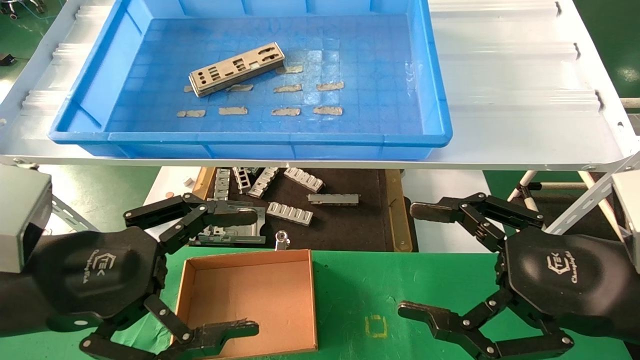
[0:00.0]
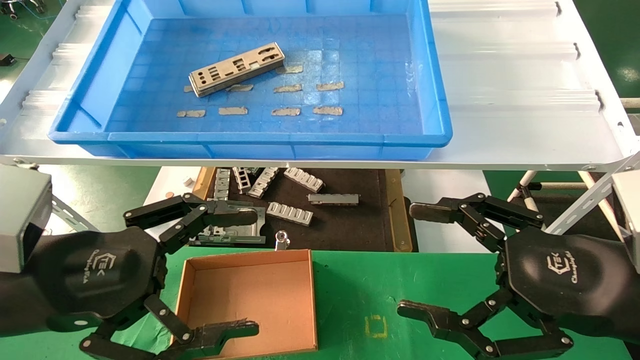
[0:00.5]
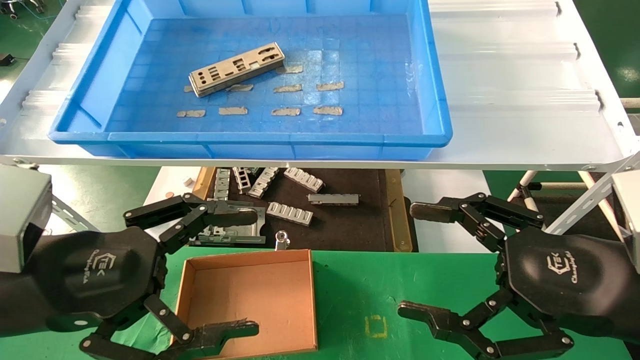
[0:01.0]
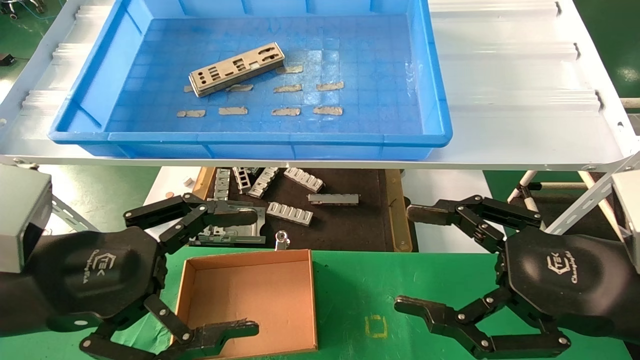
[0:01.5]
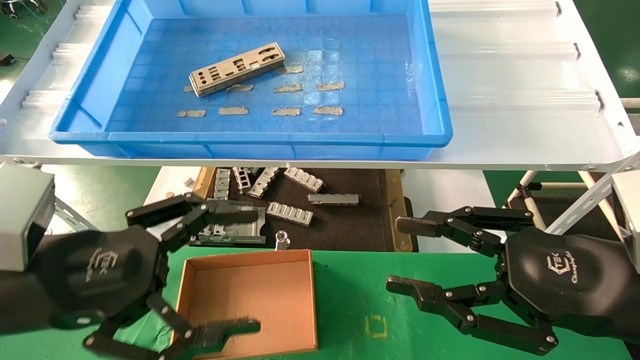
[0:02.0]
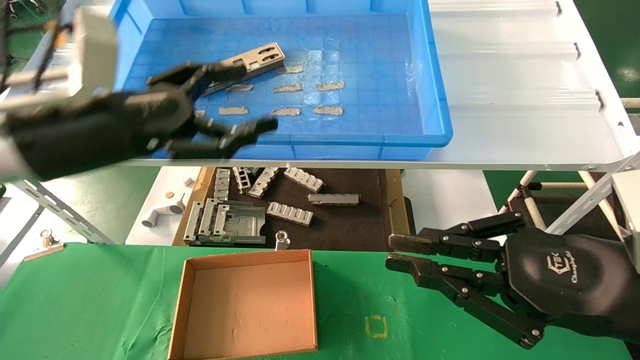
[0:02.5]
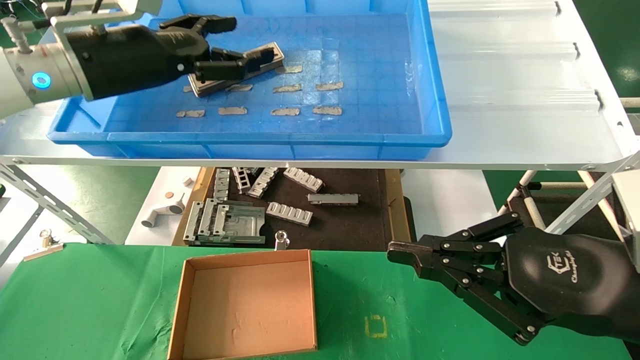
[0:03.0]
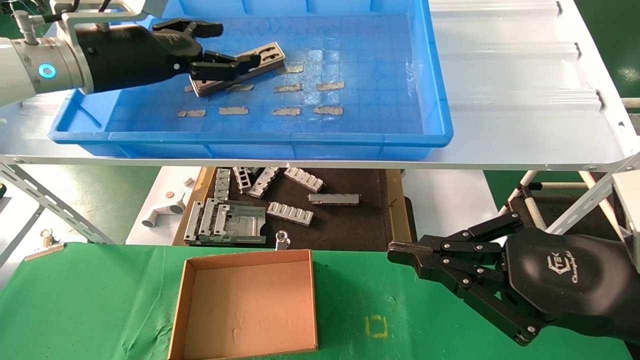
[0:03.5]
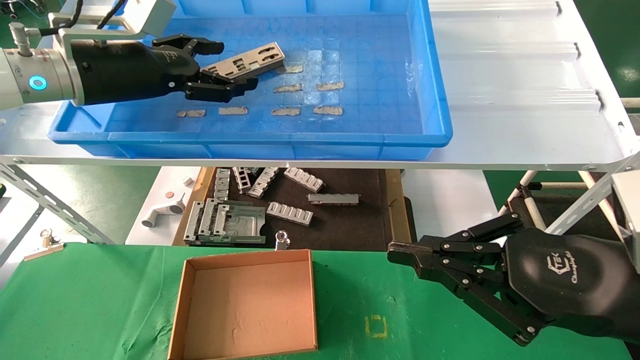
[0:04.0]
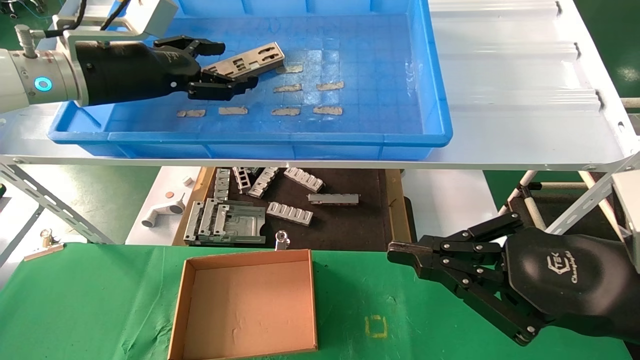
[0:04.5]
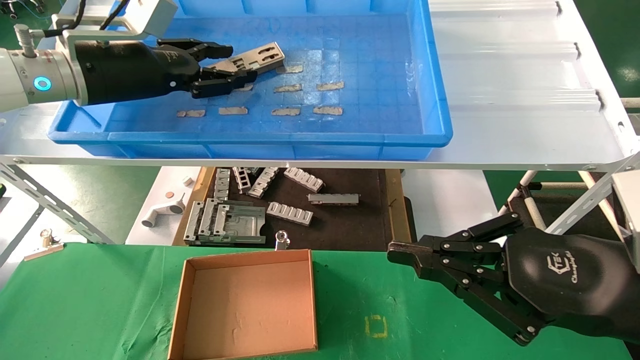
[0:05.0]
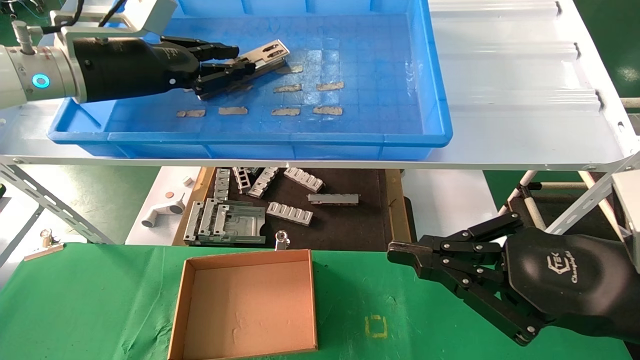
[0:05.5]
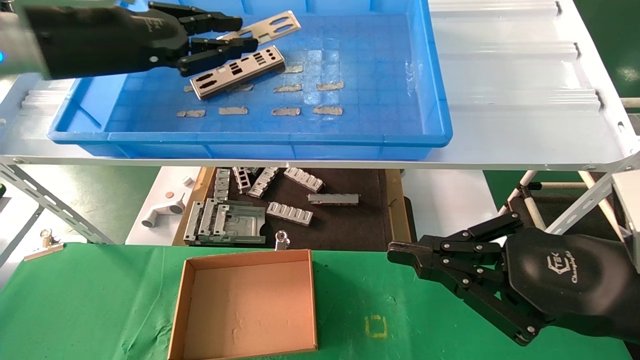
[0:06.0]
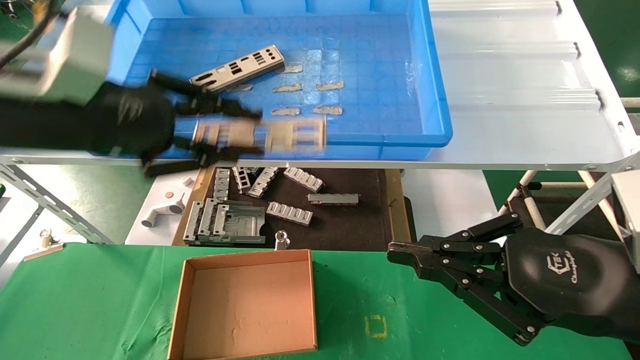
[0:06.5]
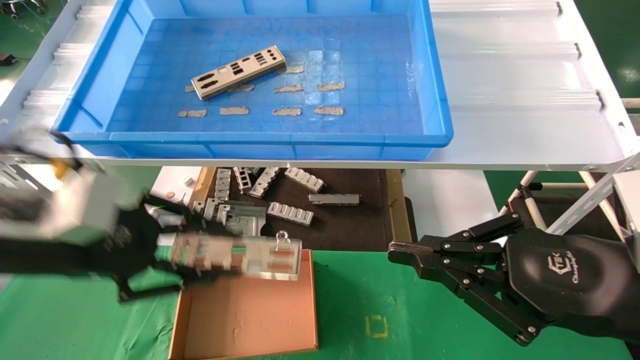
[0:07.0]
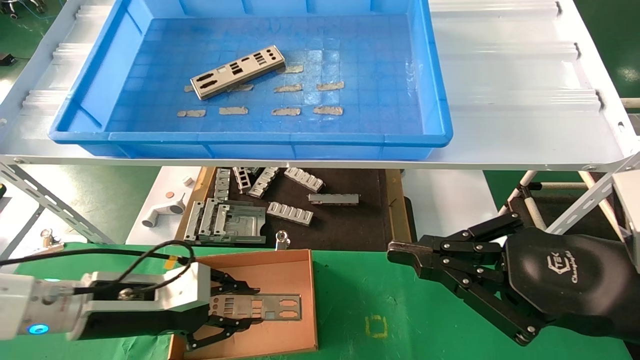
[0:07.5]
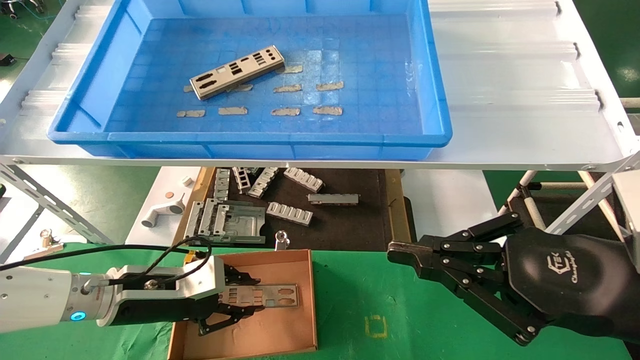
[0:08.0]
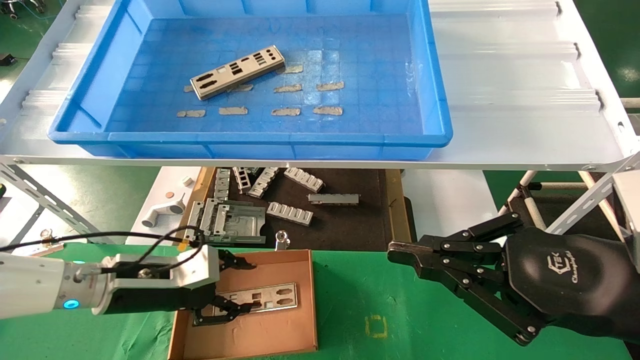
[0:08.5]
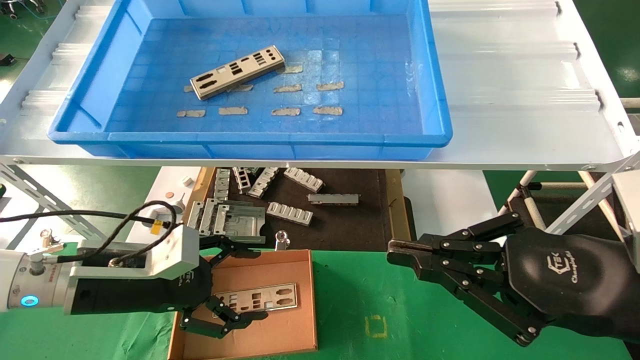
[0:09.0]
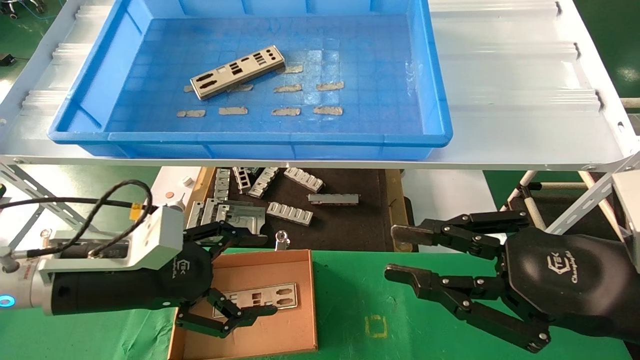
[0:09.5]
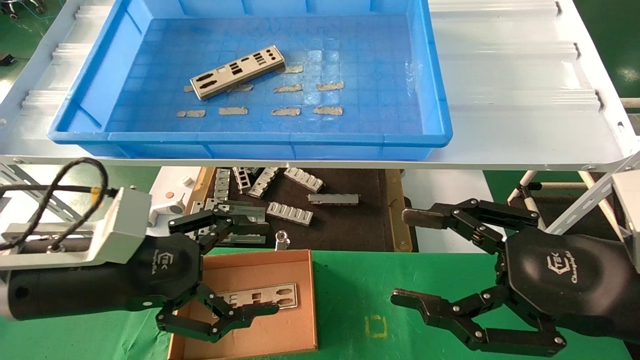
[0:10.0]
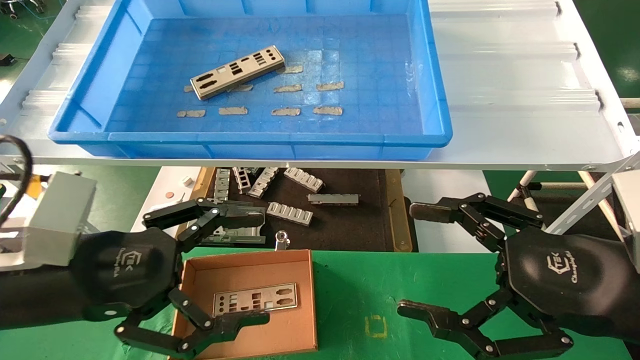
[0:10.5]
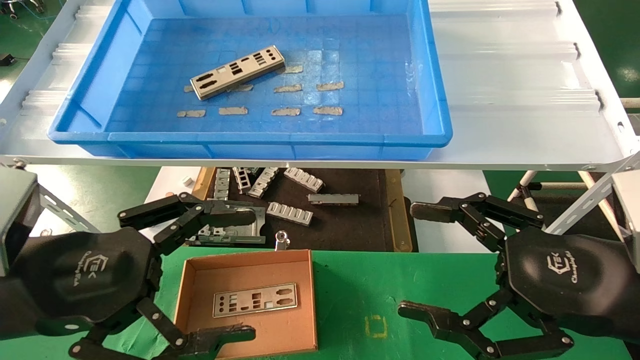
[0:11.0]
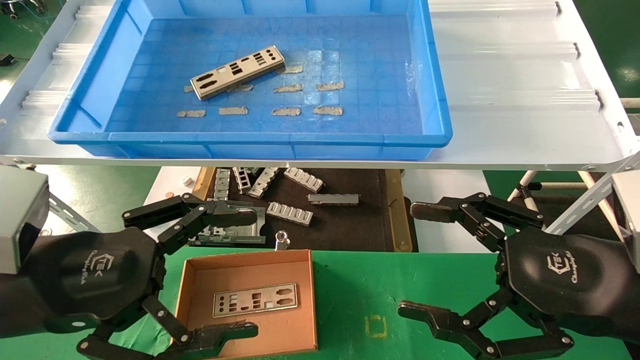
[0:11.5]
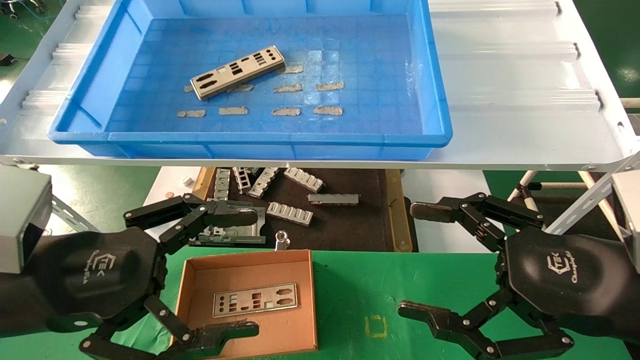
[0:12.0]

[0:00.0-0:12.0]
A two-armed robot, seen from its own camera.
Task of the whole recording: pick up the parts on the tray and put them in the cardboard box.
Step, 0:02.5 to 0:05.5: Pick up the IO bracket from the container box.
Step, 0:06.0 to 0:08.0: Place the IO bracket into the ingredient slot.
0:00.0 to 0:02.0: The right gripper closes up.
0:02.0 to 0:04.0: The left gripper goes some 25 cm forward and upward. Meanwhile the right gripper closes up.
0:04.0 to 0:06.0: The left gripper moves roughly 5 cm, and closes its fingers.
0:06.0 to 0:08.0: The left gripper is displaced downward by some 30 cm.
0:08.0 to 0:10.0: The right gripper opens, while the left gripper moves backward and upward, some 15 cm, and opens.
0:10.0 to 0:12.0: The left gripper shifts roughly 5 cm backward; the right gripper opens up.

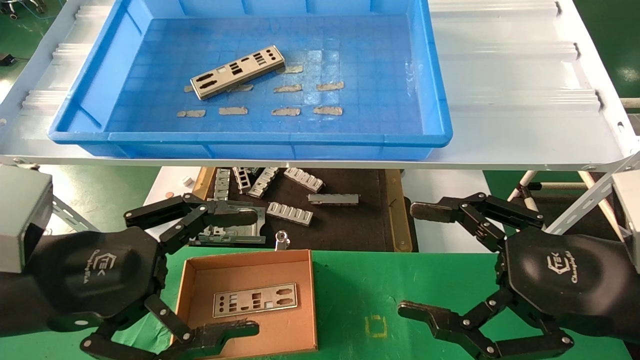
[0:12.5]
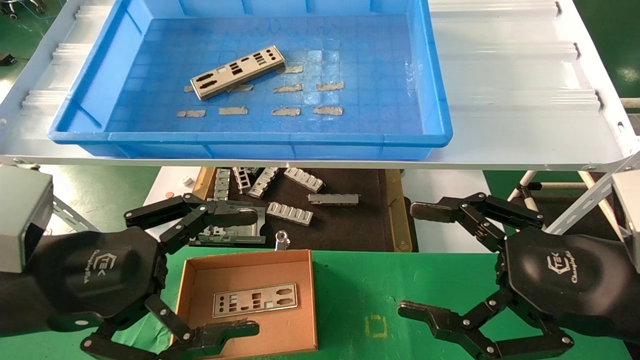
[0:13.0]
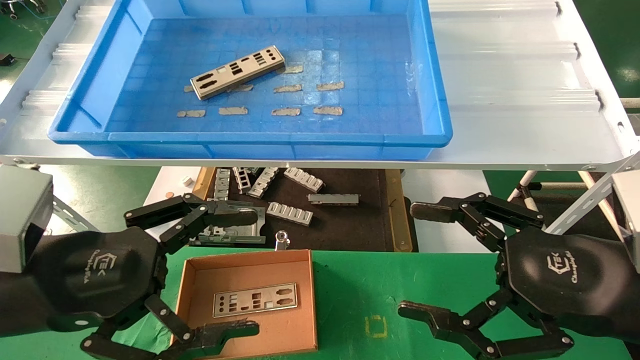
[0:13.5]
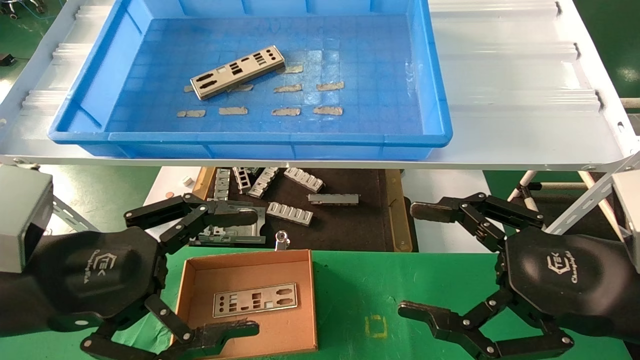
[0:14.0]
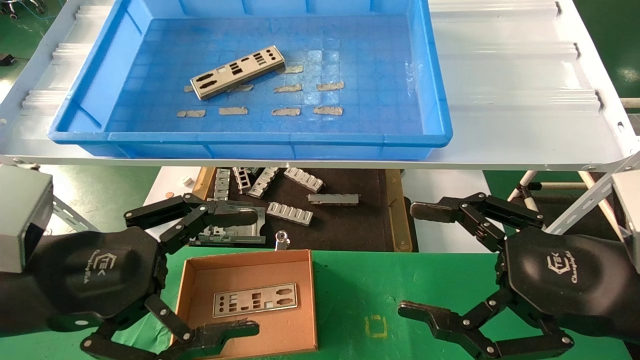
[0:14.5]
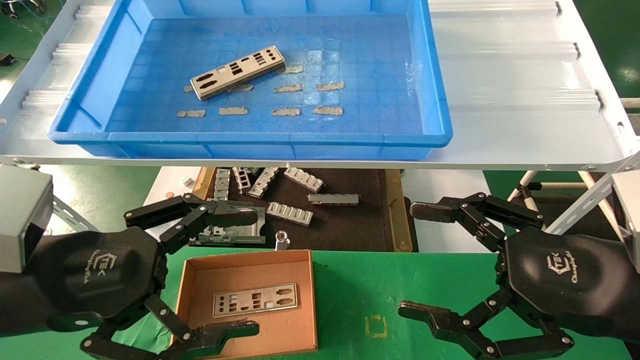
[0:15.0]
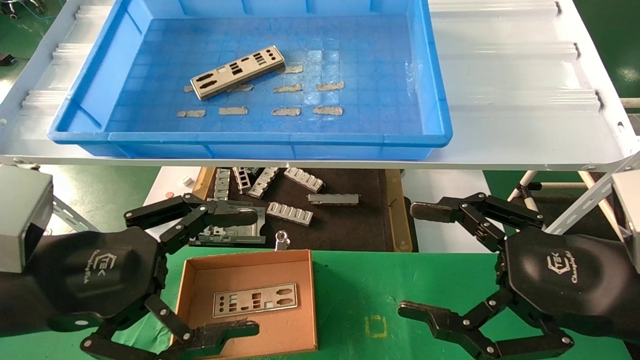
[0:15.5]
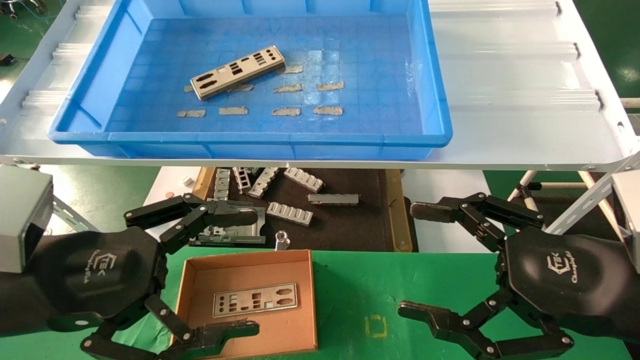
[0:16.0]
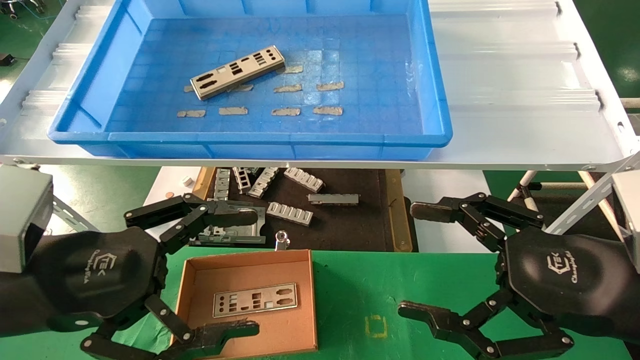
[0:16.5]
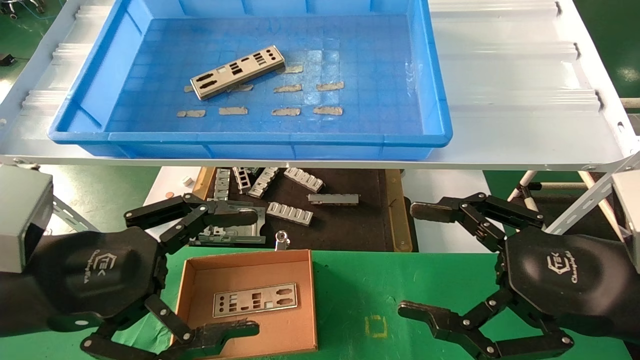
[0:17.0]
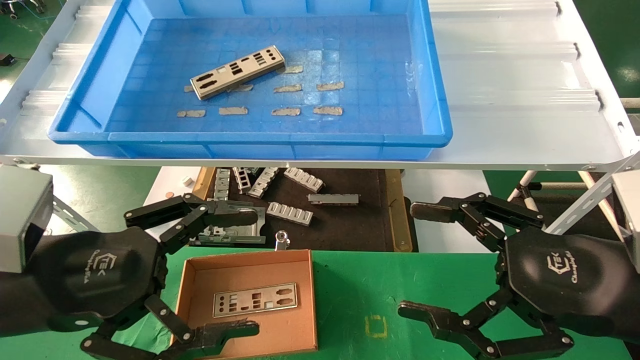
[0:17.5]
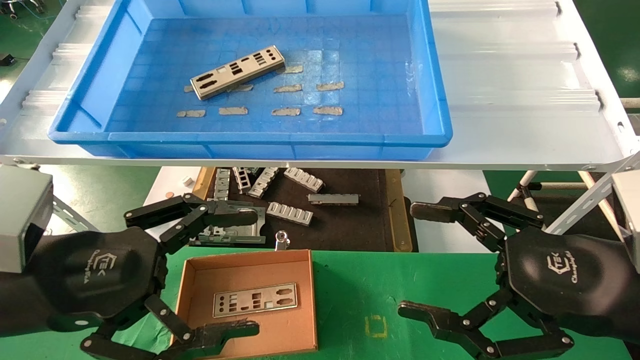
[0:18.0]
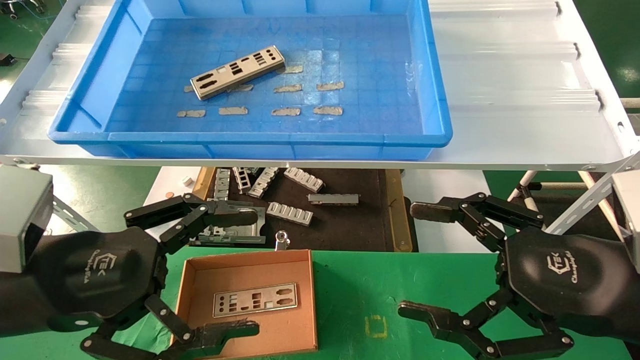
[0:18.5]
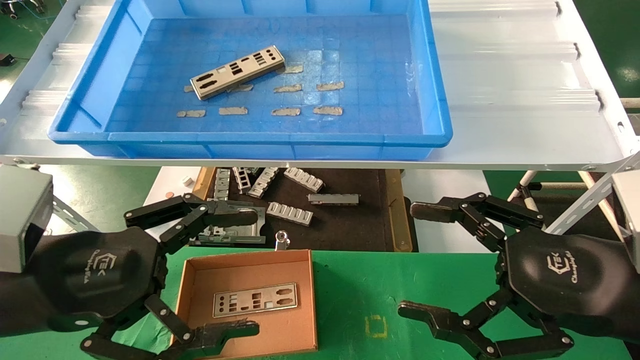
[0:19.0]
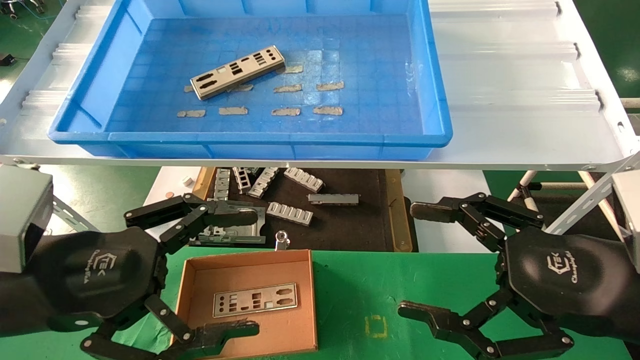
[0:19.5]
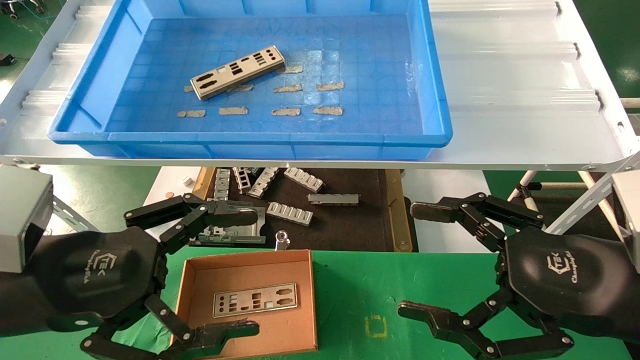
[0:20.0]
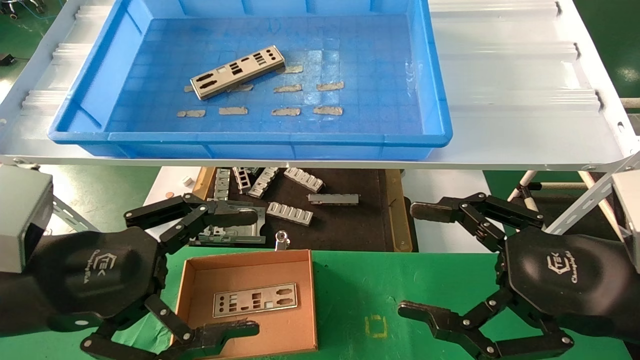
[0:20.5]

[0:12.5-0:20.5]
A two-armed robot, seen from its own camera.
Task of the whole recording: pick up the parts on the tray and put them in the cardboard box.
0:12.5 to 0:20.5: The two grippers keep their place.
